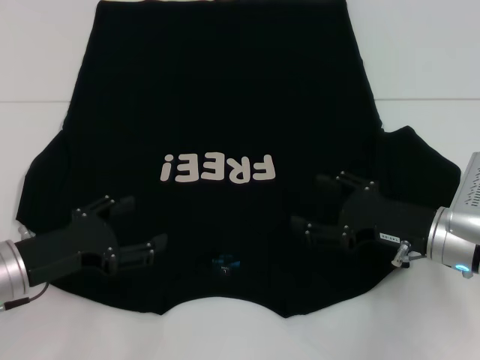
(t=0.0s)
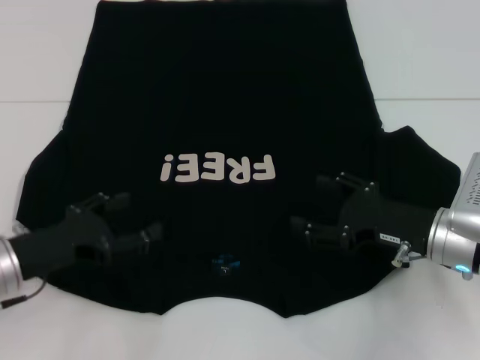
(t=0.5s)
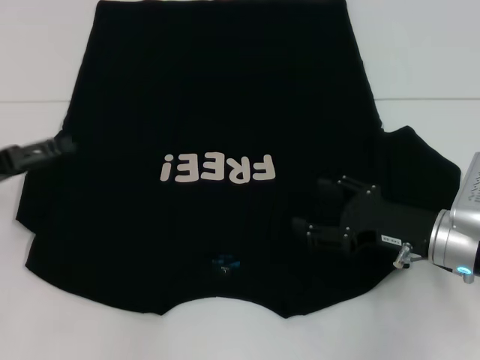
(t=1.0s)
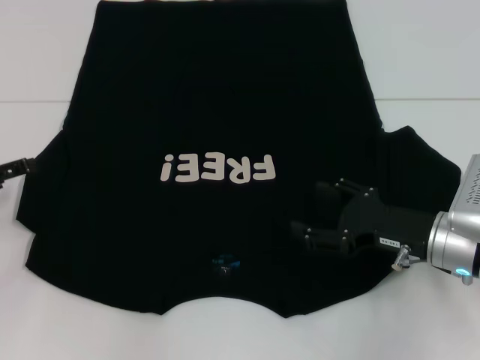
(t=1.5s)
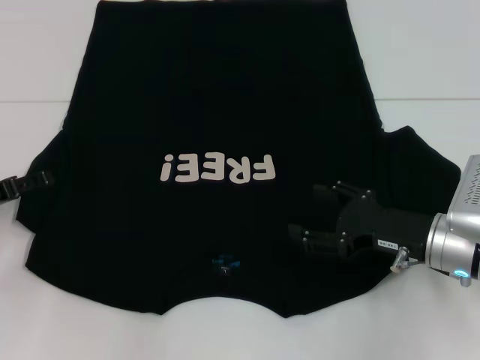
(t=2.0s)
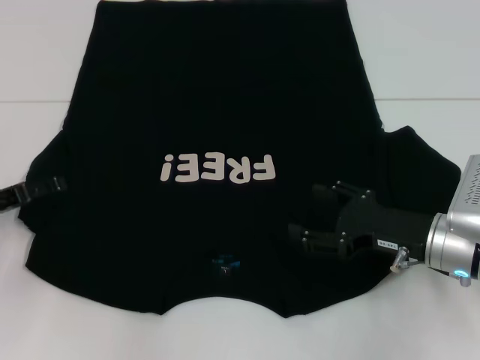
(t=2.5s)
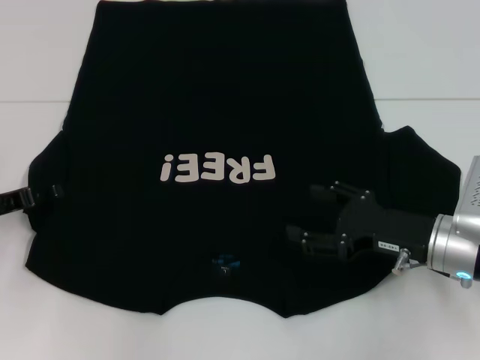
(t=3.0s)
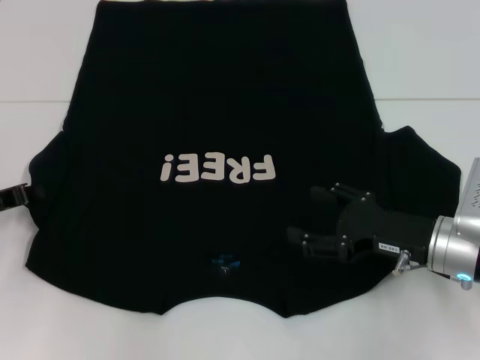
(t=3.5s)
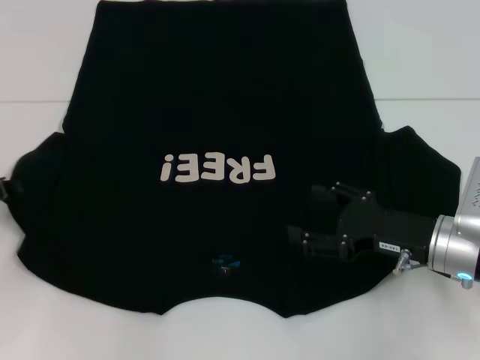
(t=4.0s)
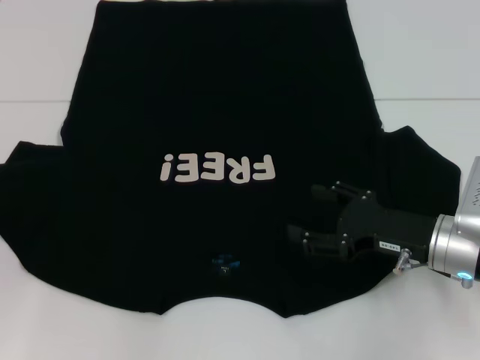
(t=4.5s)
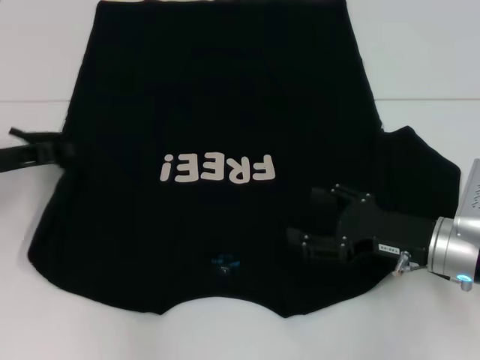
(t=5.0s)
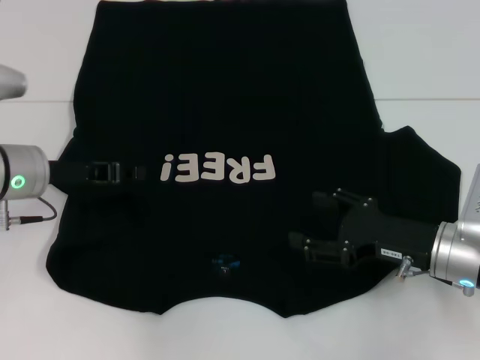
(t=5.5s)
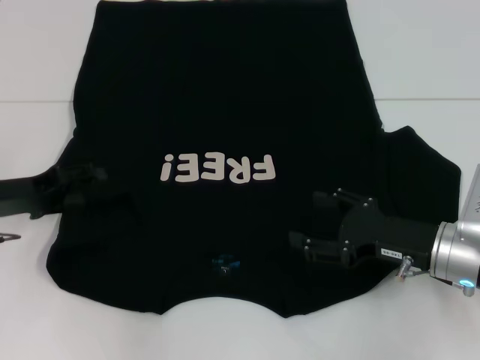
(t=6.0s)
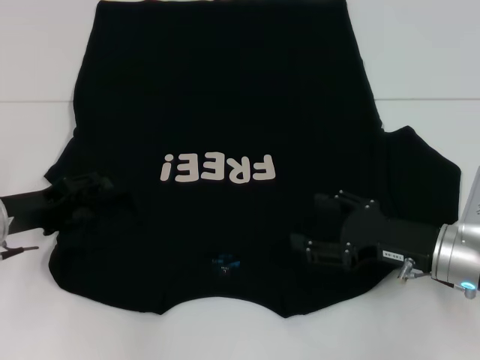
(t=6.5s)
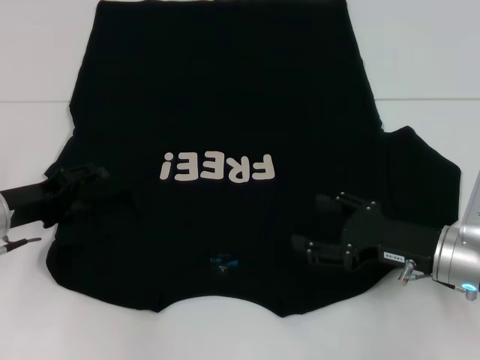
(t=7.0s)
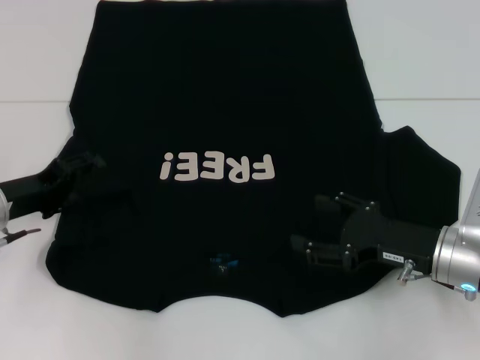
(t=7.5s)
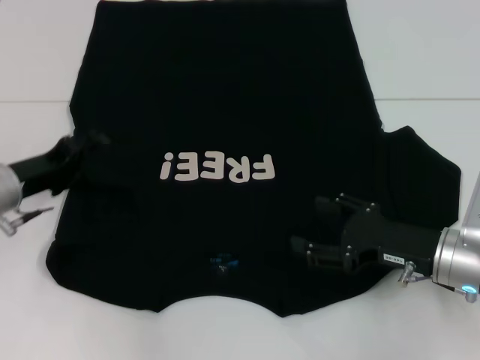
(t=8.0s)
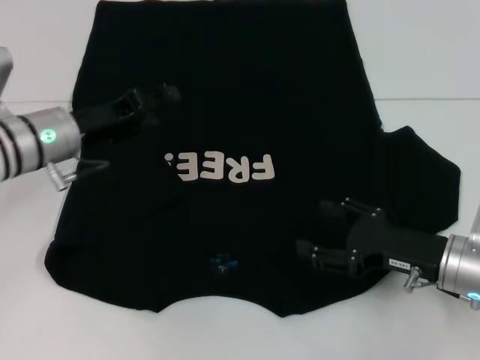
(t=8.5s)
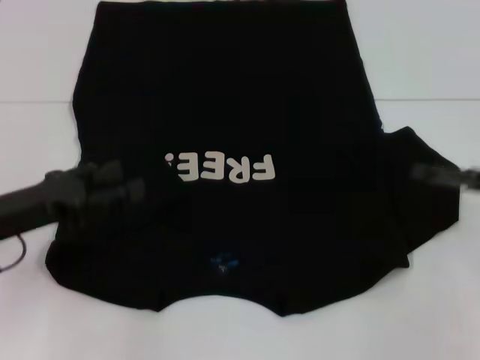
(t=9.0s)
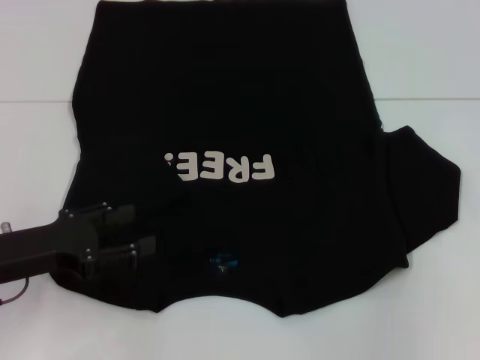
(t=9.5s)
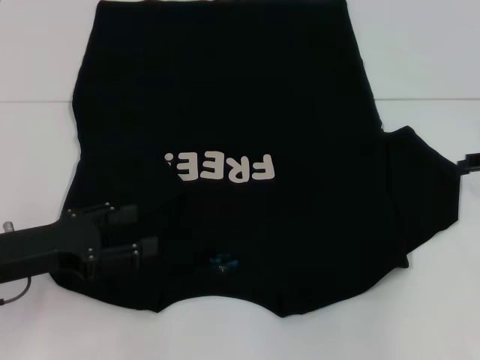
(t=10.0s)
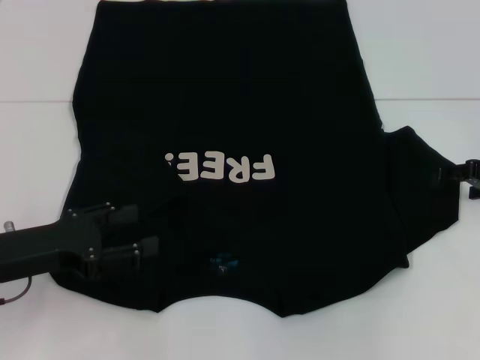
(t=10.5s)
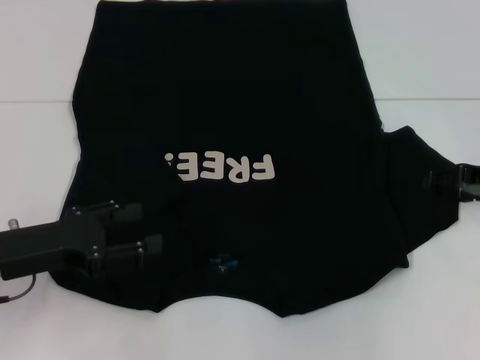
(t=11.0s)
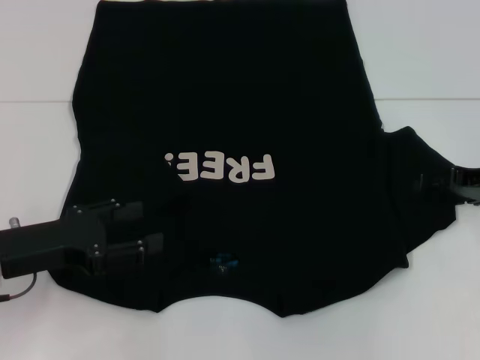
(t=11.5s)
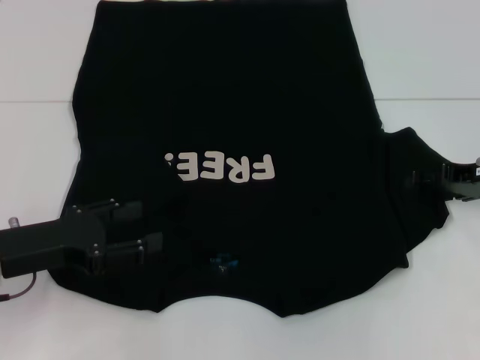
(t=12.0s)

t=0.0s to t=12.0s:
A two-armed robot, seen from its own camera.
Step, t=0.0s to t=5.5s: Fold the bottom left sleeve with your left hand.
t=0.0s to t=2.0s: The left gripper goes about 10 cm to the left and forward.
t=2.0s to t=4.0s: The left gripper closes its fingers.
t=4.0s to t=6.0s: The left gripper opens up.
t=6.0s to t=8.0s: The grippers make only small movements.
t=8.0s to t=10.0s: The left gripper is displaced backward by some 10 cm; the right gripper is displaced to the right, upward and forward by some 20 cm.
t=10.0s to t=12.0s: The right gripper travels to the left by about 5 cm.

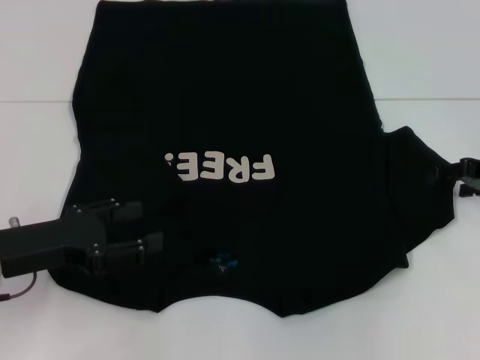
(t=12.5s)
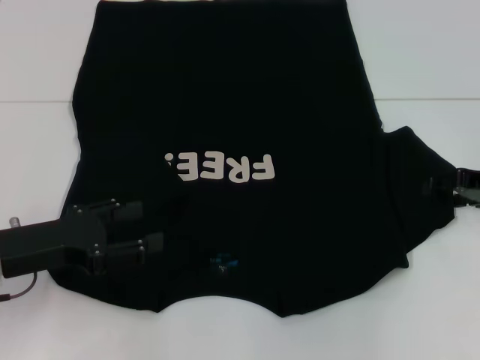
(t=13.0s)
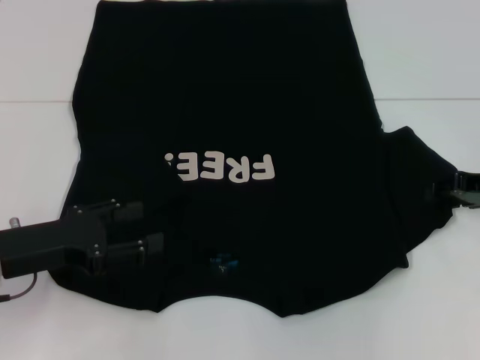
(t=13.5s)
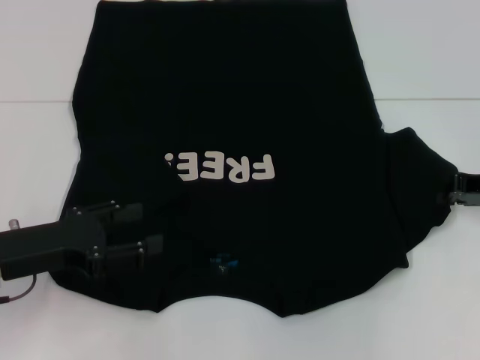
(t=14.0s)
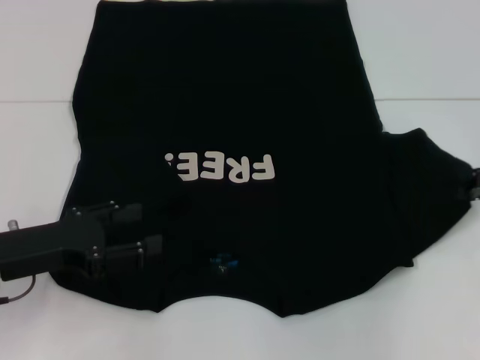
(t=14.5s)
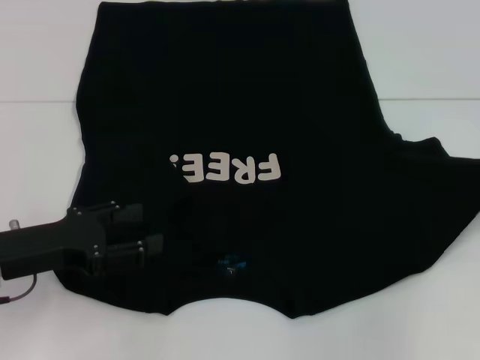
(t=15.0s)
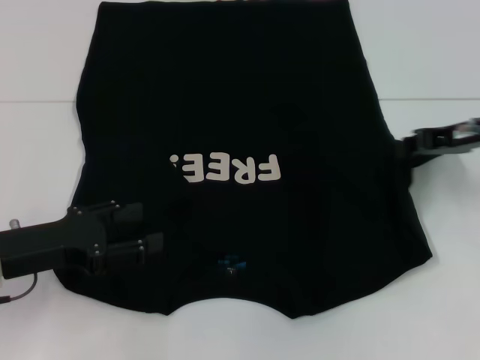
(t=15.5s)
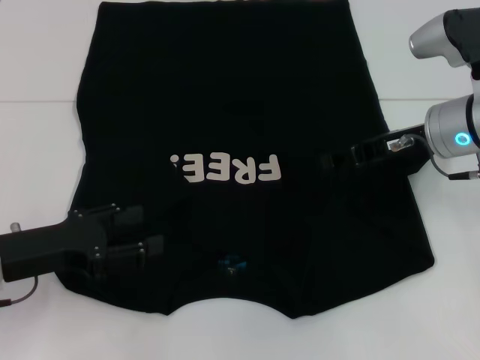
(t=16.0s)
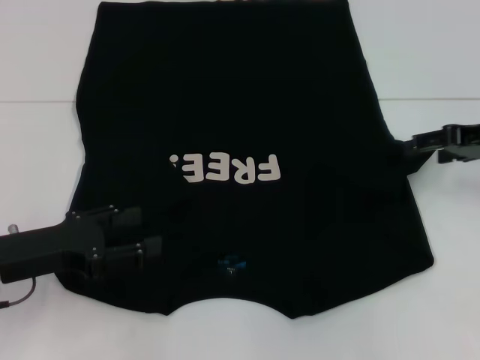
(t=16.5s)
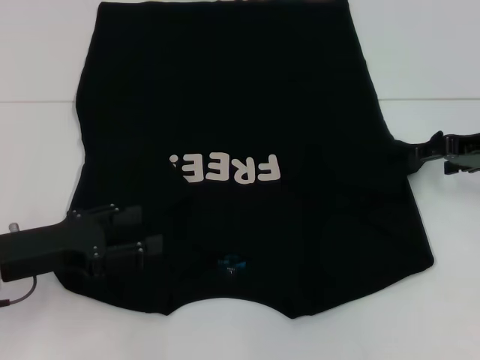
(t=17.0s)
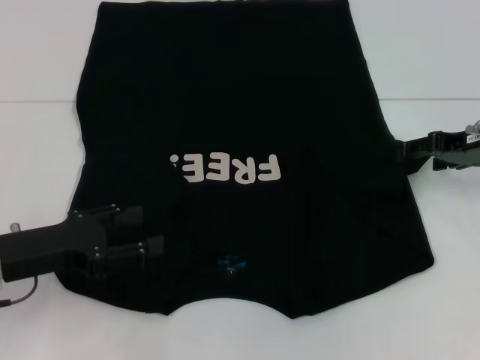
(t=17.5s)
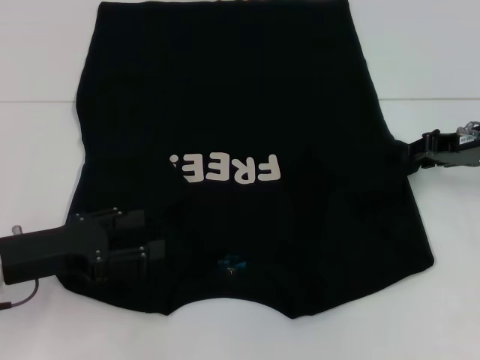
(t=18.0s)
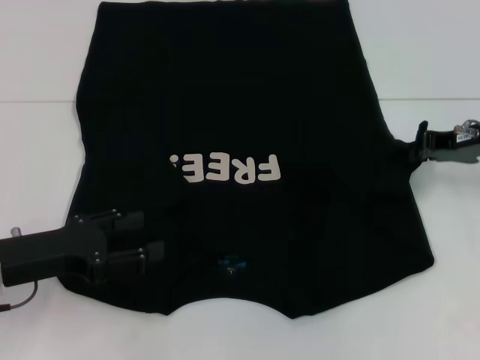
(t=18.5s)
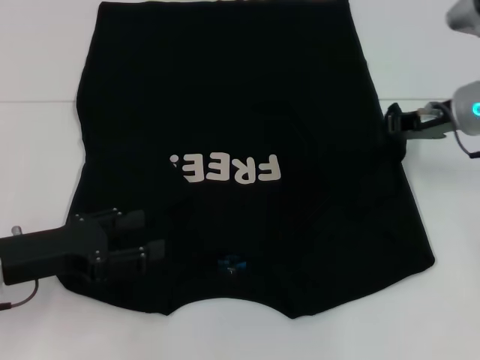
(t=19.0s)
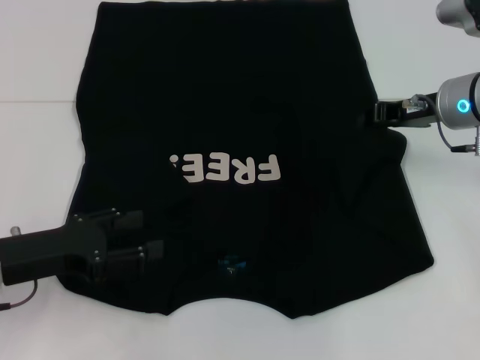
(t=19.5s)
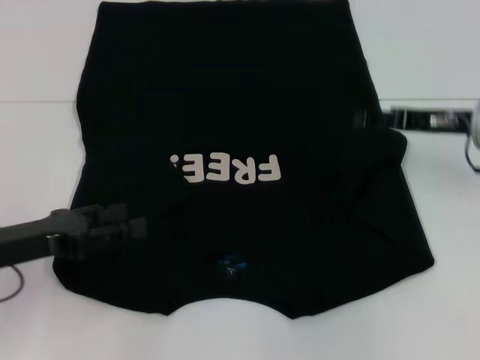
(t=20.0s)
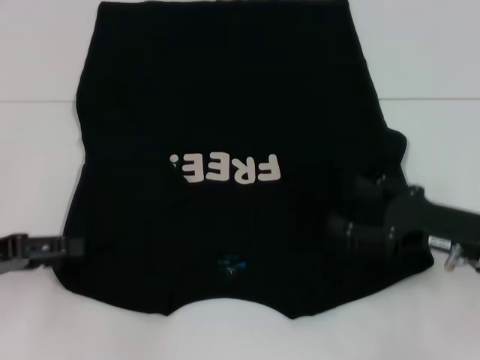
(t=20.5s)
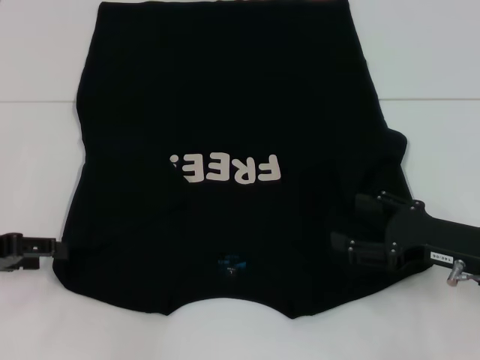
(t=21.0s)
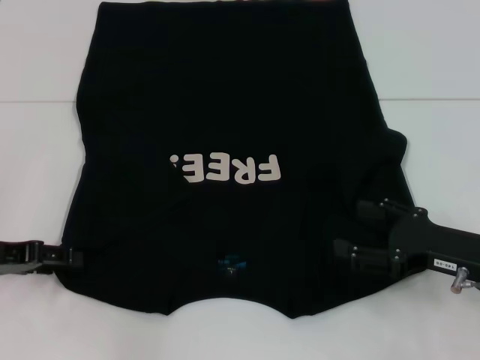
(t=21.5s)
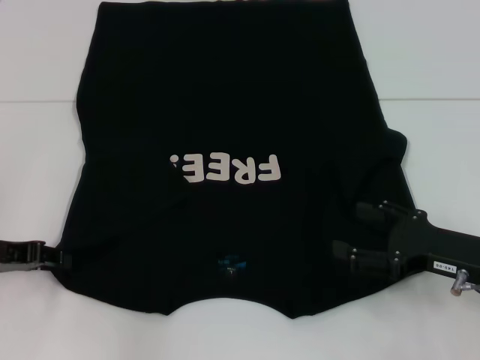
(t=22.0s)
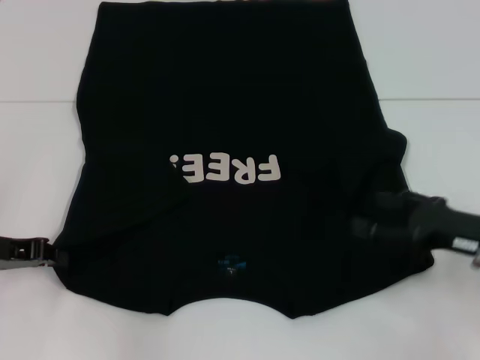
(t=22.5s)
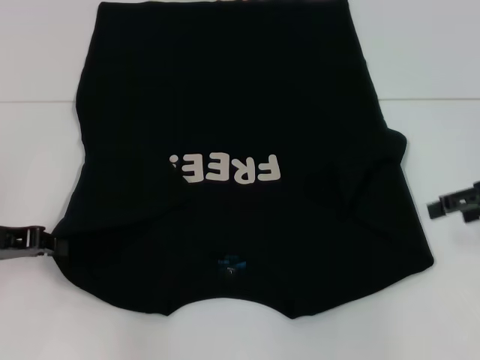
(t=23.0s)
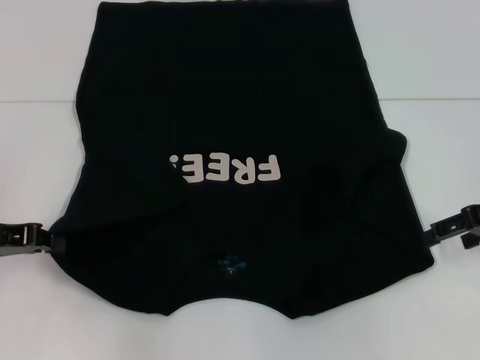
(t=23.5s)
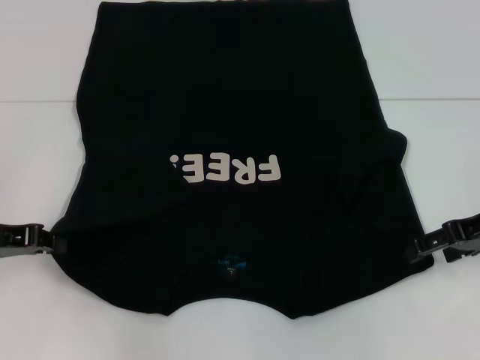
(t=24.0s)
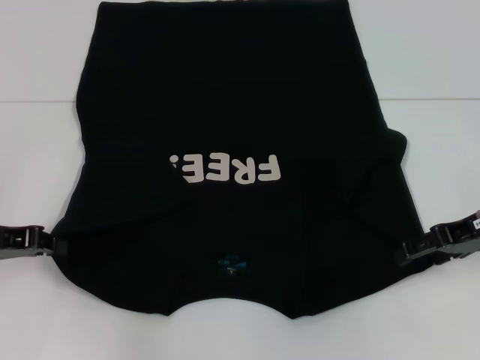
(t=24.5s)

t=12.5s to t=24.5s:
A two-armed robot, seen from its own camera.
Step, t=12.5s to t=16.0s: Fold the bottom right sleeve with your right hand.
Step, t=16.5s to t=23.0s: Grab the bottom left corner with your left hand.
t=12.5s to t=14.5s: The right gripper closes its fingers.
t=14.5s to t=16.5s: The right gripper goes to the left and returns, approximately 15 cm each way, and opens.
t=16.5s to t=18.5s: The right gripper closes.
t=18.5s to t=20.5s: The left gripper travels to the left by about 5 cm, while the right gripper heads backward and downward, covering roughly 15 cm, and opens its fingers.
t=20.5s to t=22.5s: The left gripper closes.
t=22.5s to t=24.5s: The right gripper goes about 5 cm forward.

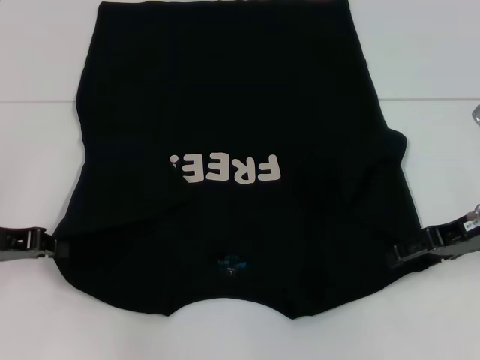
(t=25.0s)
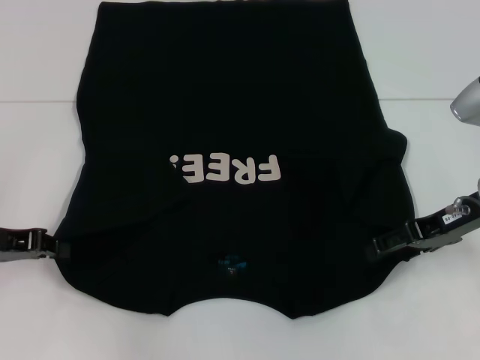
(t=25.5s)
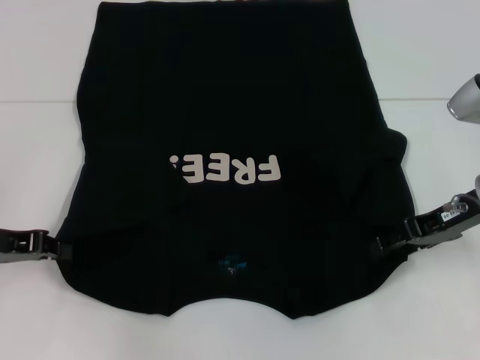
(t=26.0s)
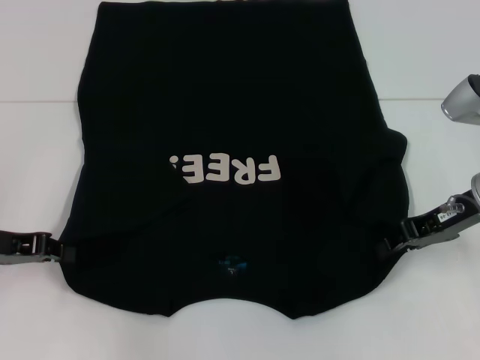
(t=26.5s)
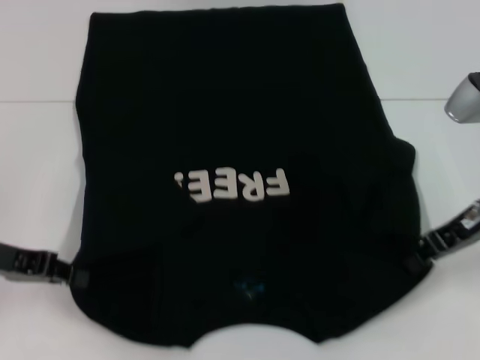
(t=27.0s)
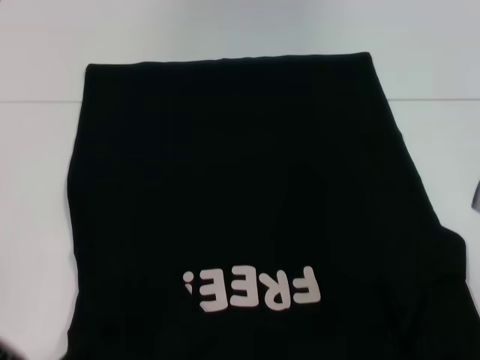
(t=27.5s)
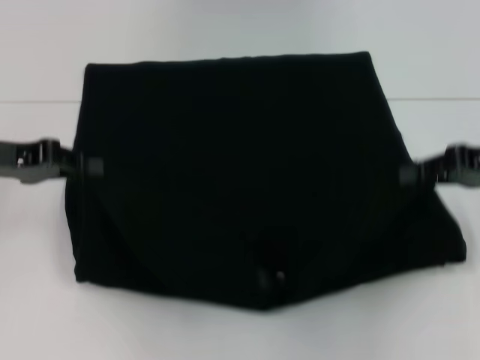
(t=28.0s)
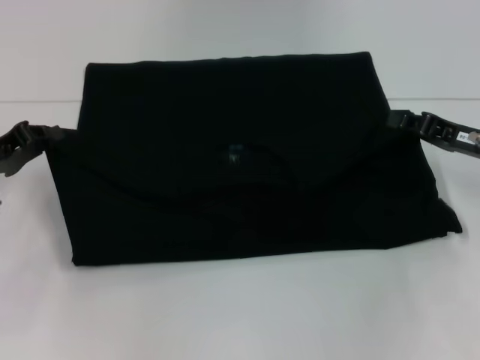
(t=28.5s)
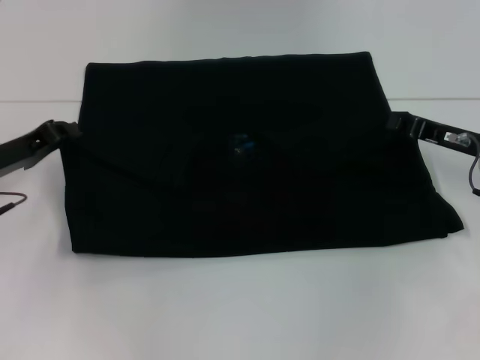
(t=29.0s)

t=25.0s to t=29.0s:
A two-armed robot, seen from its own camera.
t=25.0s to t=27.0s: The right gripper closes its fingers.
t=27.0s to t=29.0s: The right gripper reaches roughly 5 cm backward, then returns. Meanwhile the left gripper shifts about 5 cm forward.
